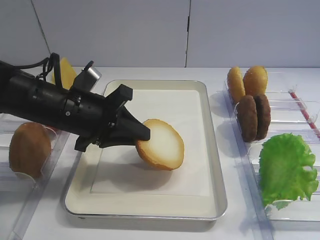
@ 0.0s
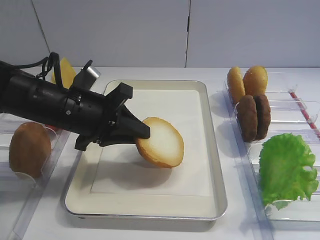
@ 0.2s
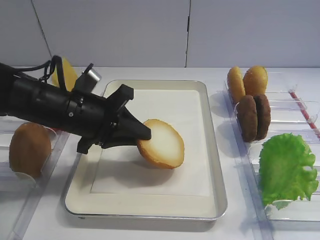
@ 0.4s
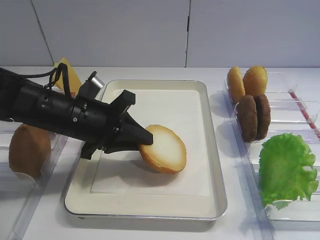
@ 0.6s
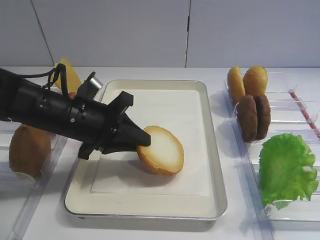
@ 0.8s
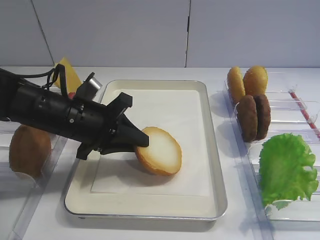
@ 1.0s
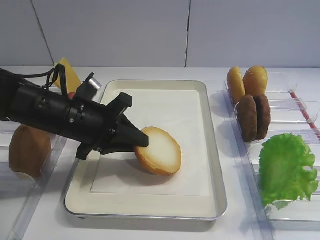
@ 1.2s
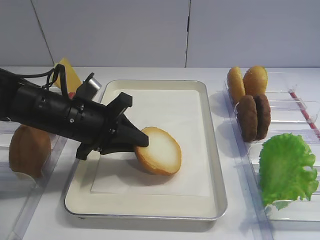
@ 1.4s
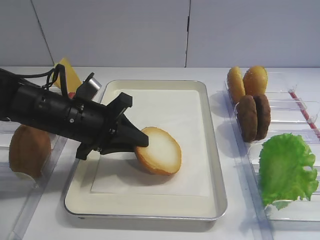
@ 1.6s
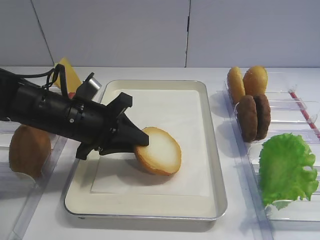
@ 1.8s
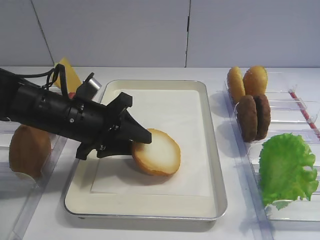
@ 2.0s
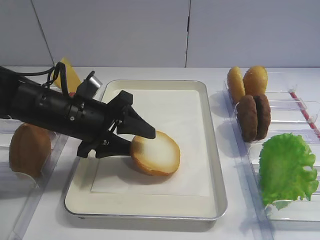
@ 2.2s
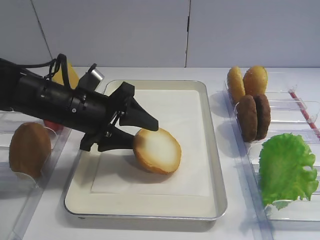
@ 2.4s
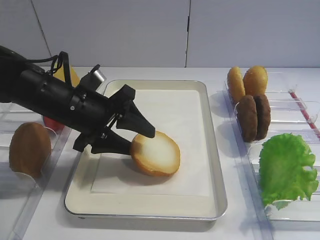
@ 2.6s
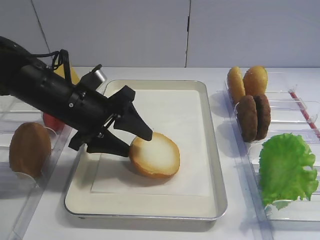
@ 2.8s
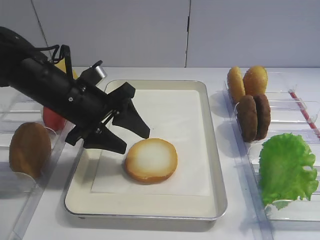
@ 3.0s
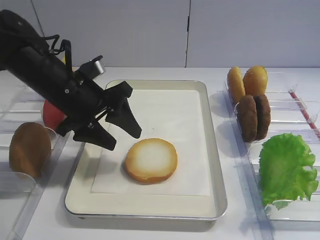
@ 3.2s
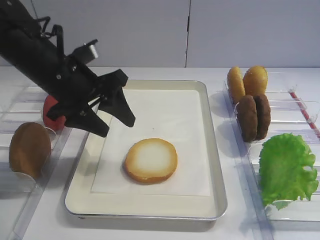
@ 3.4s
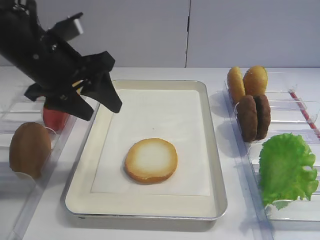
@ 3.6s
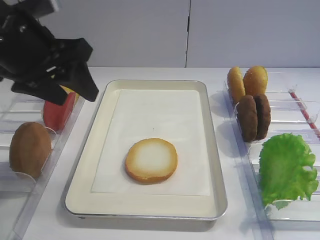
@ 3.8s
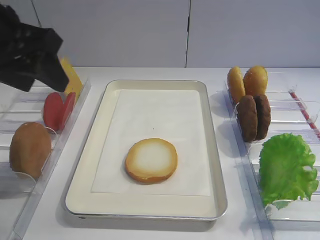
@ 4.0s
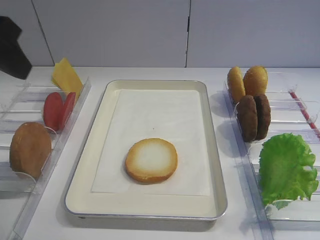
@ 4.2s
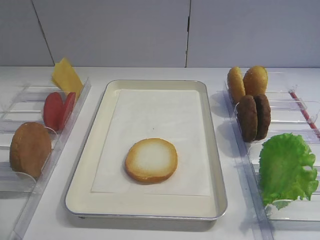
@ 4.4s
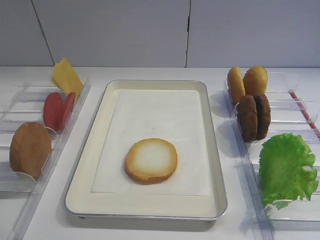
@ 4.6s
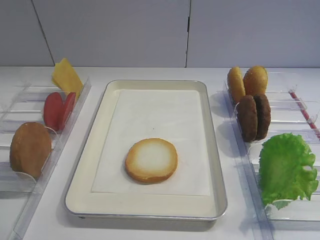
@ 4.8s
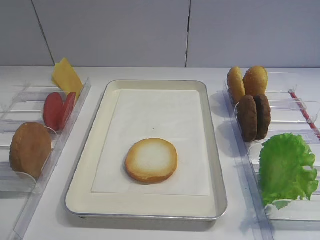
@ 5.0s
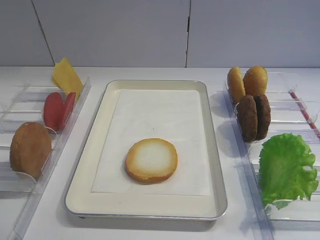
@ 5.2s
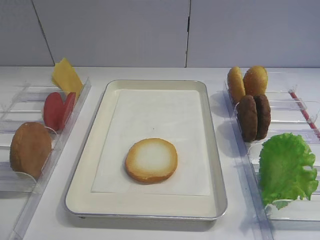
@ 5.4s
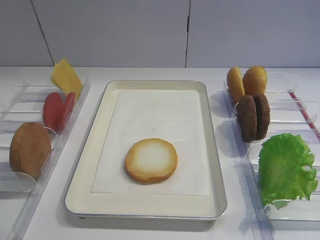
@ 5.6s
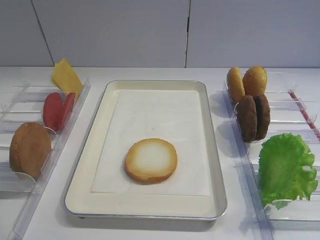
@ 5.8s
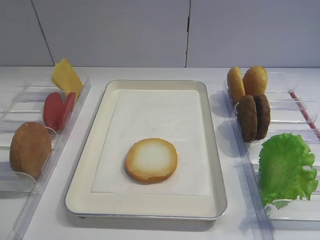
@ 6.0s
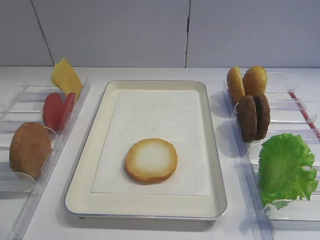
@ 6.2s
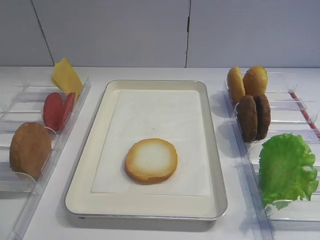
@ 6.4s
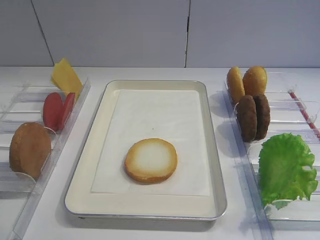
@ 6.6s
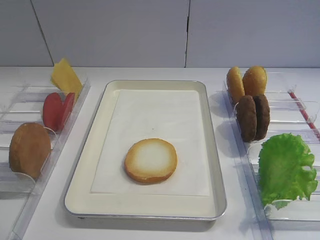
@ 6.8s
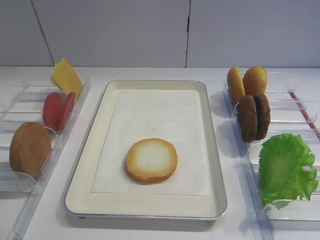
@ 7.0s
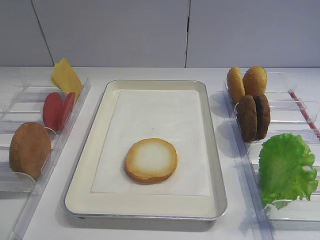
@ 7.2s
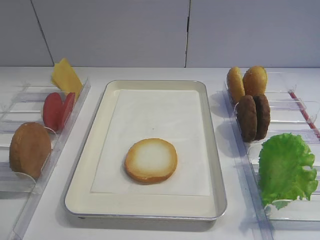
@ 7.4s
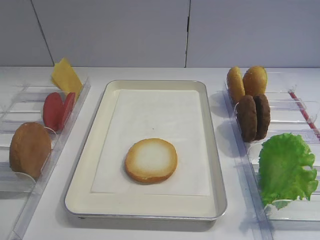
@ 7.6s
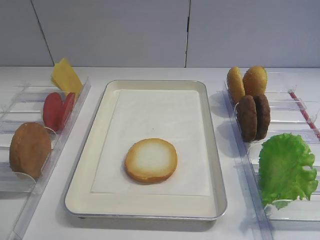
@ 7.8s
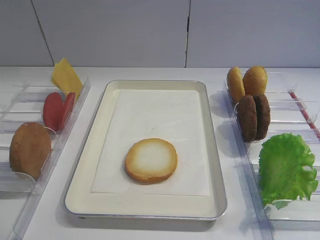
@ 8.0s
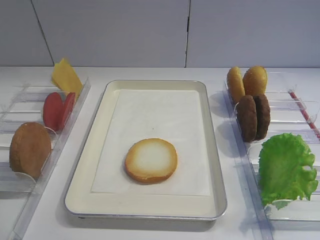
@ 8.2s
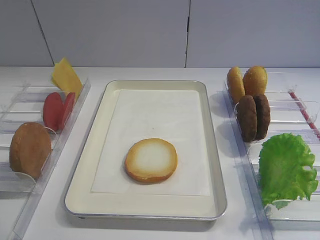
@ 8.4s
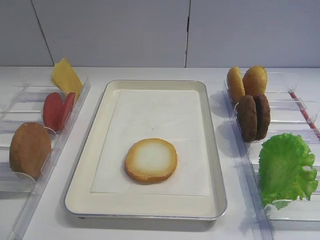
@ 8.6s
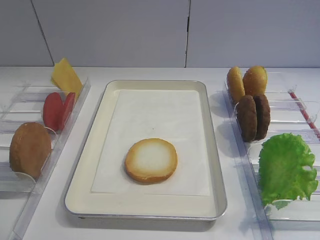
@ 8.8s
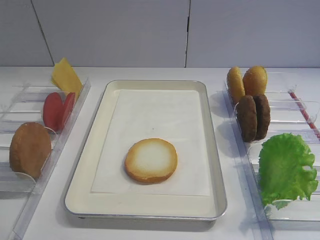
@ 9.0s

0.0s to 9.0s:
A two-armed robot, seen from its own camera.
Step, 0.0s to 3.0s: Place the bread slice on the tray with the left gripper.
0.0s to 1.6s: There are only small adjustments of the grippers.
1.6s to 3.0s: The left gripper opens up.
3.0s to 4.4s: The left gripper is displaced upward, backward and to the left by some 25 cm.
7.6s to 9.0s: Both grippers stay about where they are.
